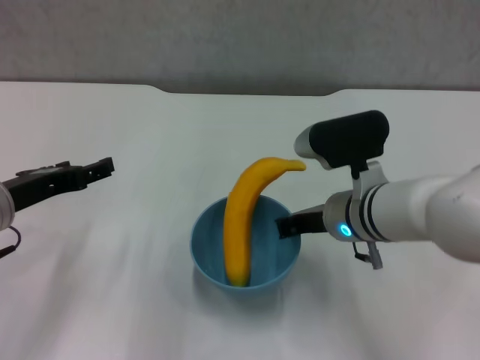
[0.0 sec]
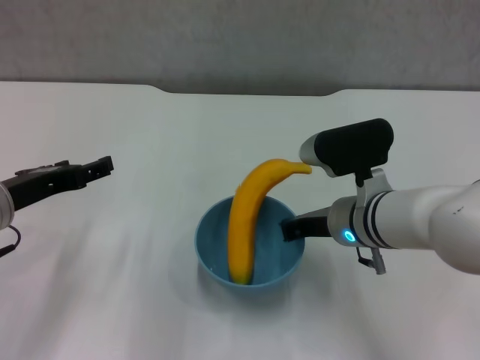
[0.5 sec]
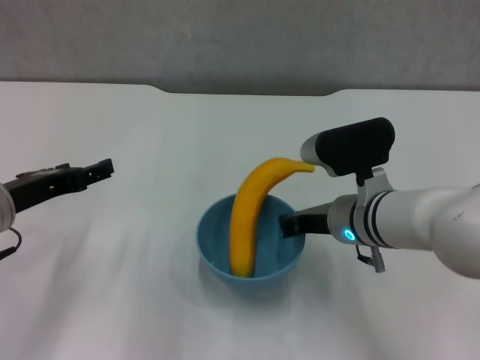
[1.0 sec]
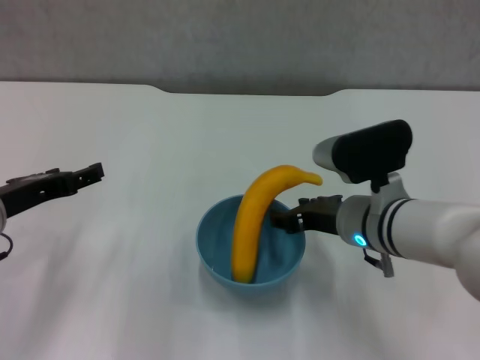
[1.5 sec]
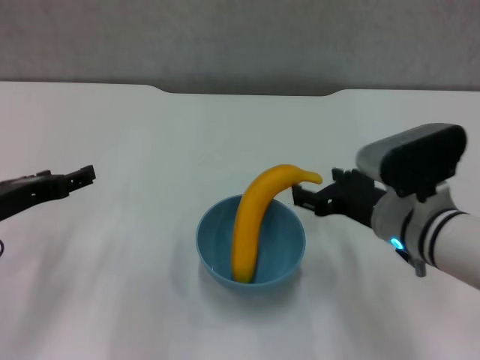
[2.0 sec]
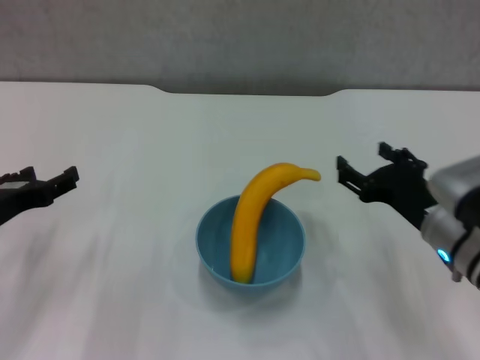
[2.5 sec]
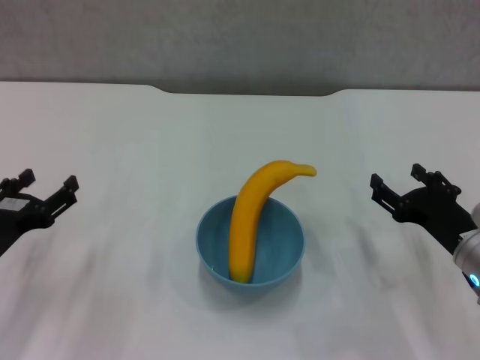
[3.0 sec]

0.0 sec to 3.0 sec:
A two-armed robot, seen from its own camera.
0.0 sec to 1.5 sec: The right gripper opens.
1.5 sec to 3.0 sec: The left gripper heads downward, covering approximately 5 cm; the right gripper moves to the right, approximately 15 cm, and opens its fingers.
